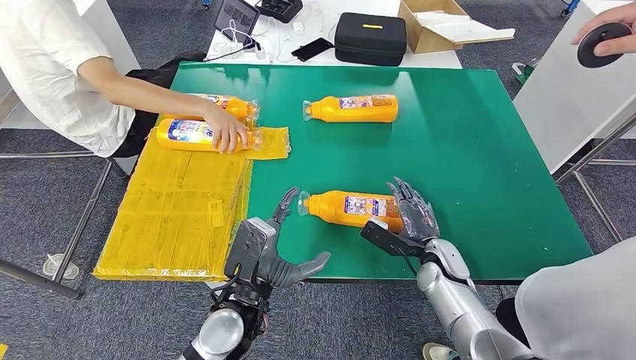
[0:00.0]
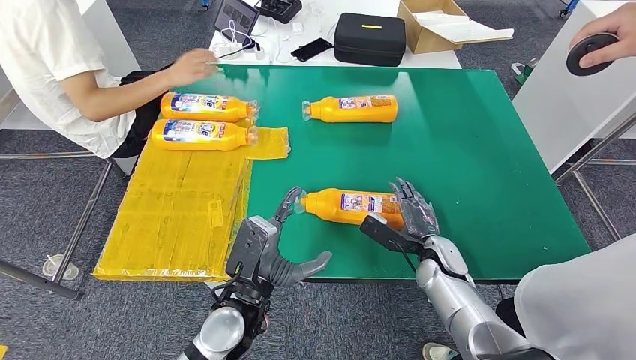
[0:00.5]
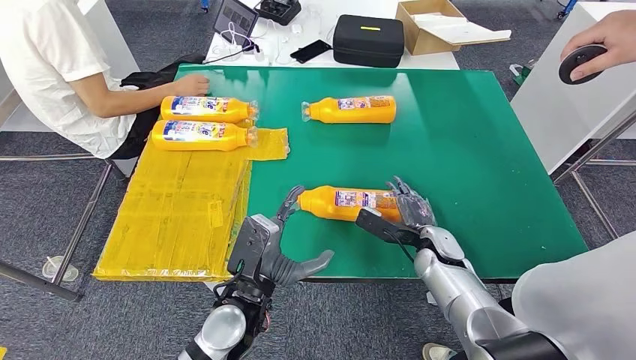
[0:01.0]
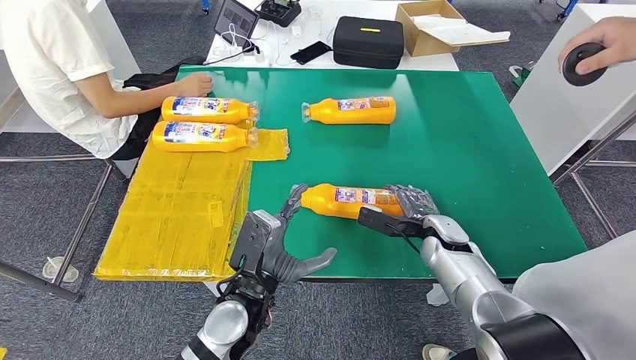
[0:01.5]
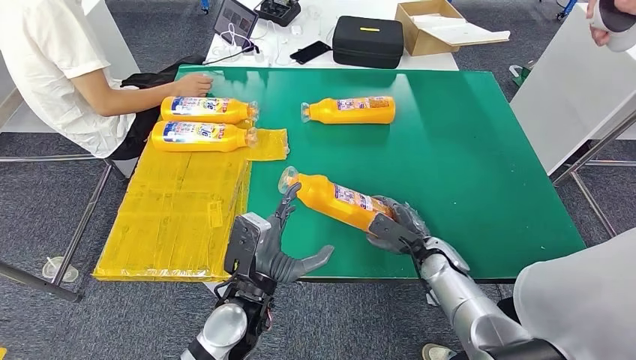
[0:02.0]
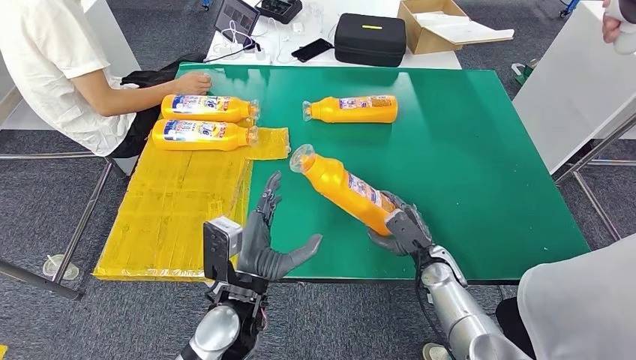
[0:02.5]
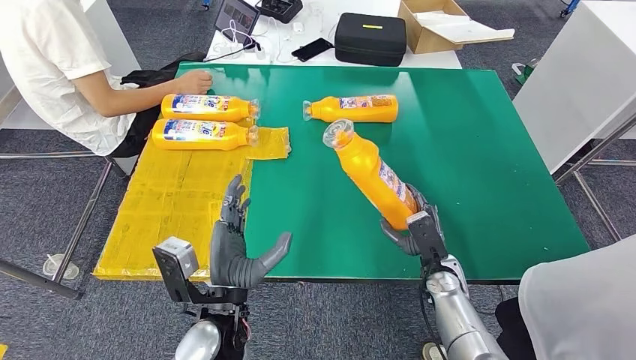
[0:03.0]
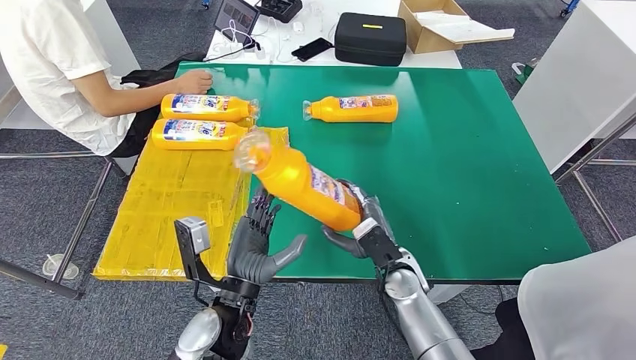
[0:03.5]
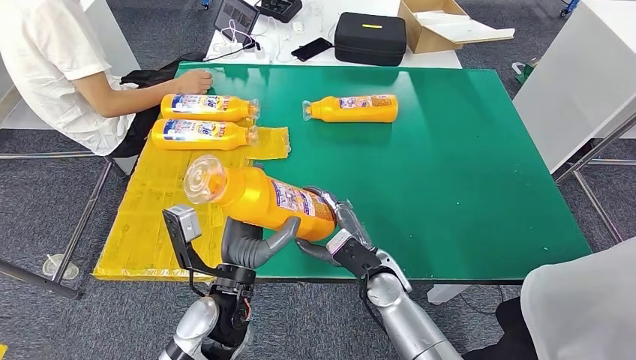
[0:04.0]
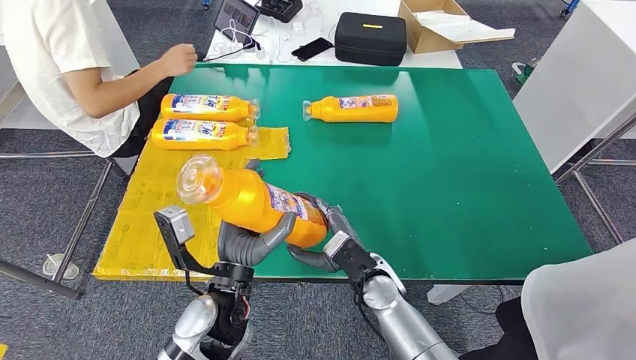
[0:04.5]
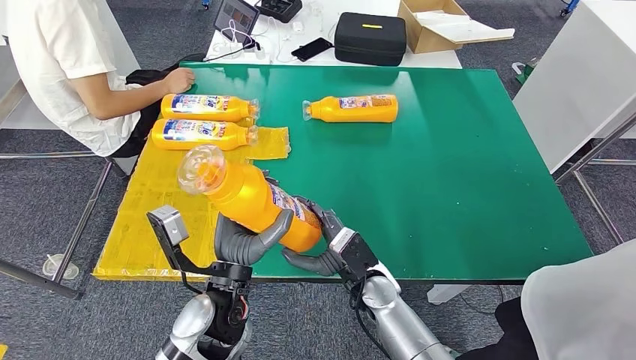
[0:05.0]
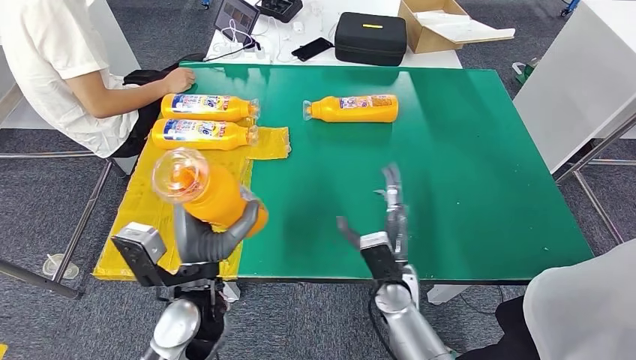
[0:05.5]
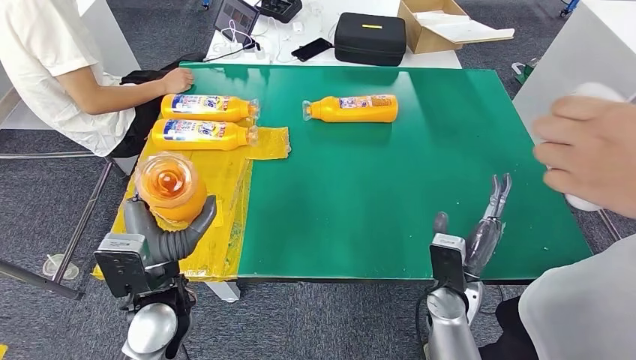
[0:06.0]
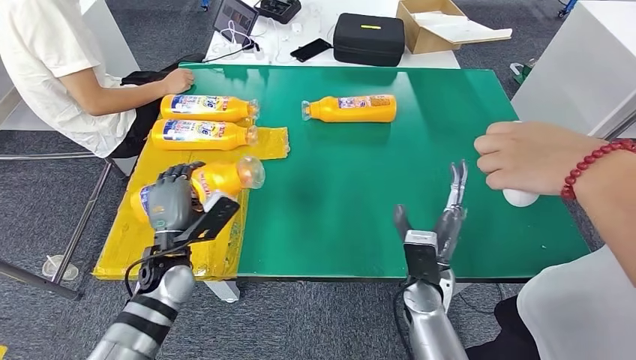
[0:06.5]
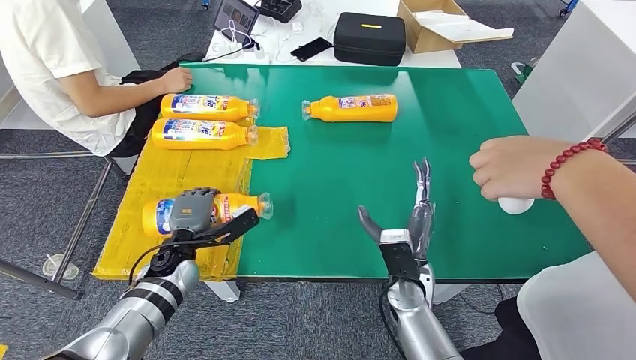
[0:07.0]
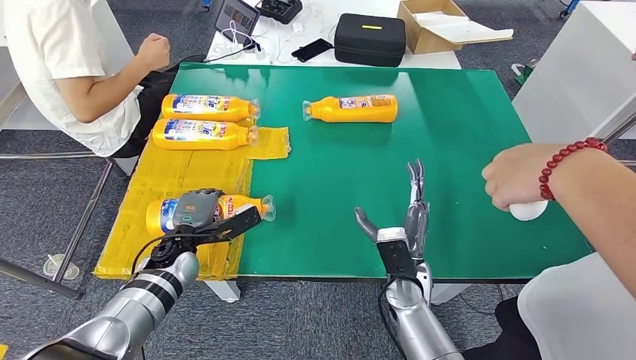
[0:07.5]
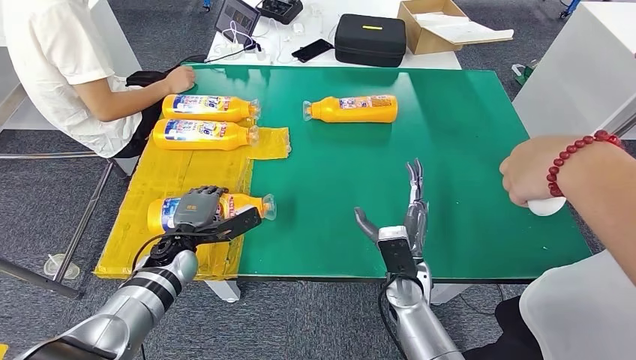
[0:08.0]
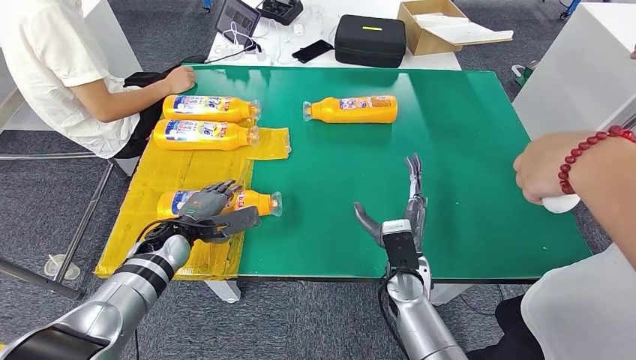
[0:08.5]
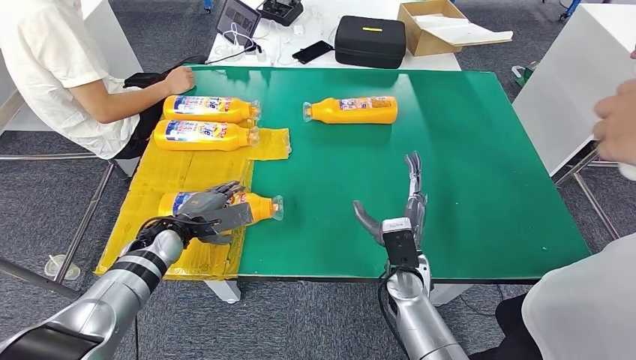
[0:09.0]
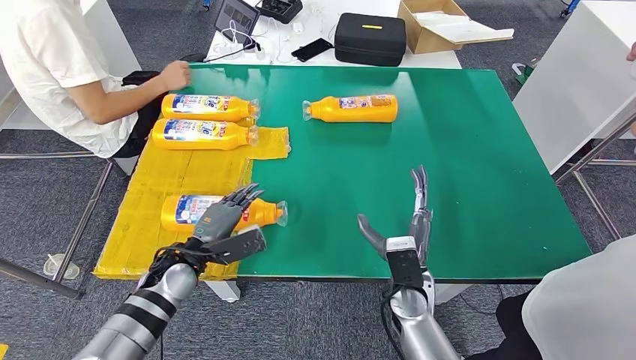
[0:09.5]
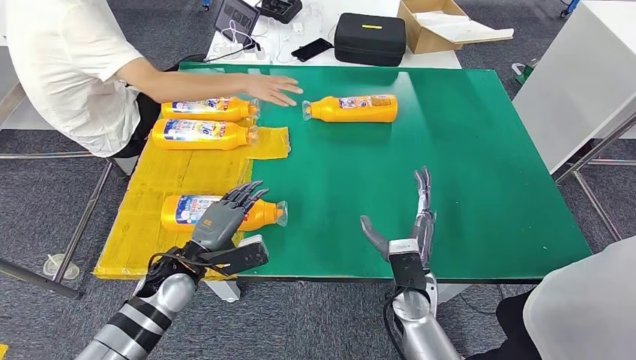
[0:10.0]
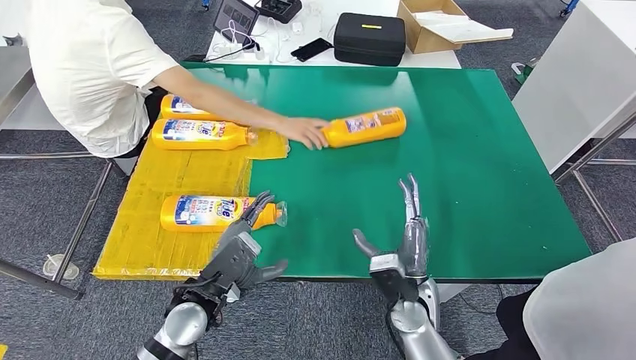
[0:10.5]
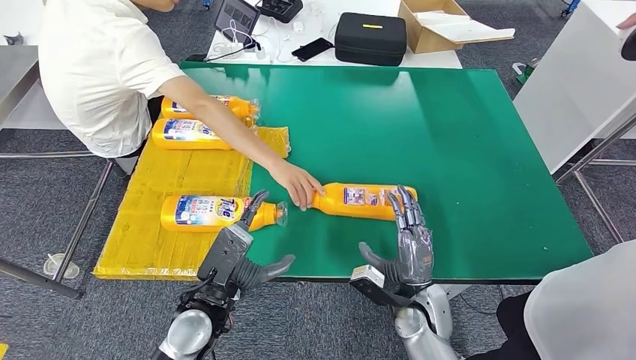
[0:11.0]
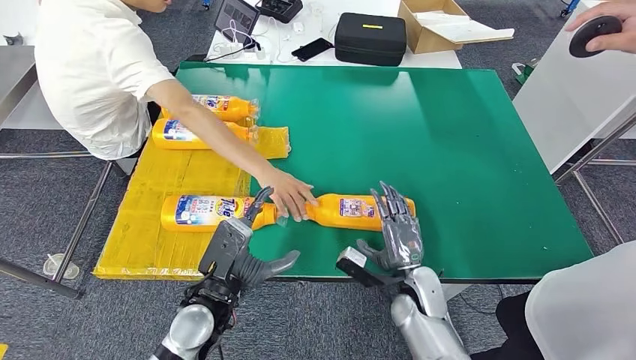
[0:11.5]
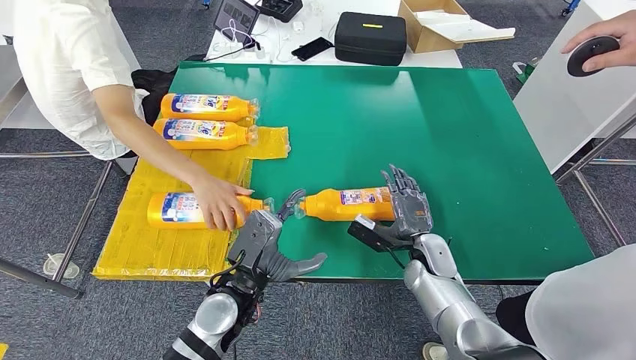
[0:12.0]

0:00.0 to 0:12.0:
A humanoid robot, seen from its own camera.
Step, 0:00.5 to 0:03.5: Pick up the fast-moving consumer goods bottle from the table.
Step, 0:05.0 to 0:07.0: Flip the fast-moving consumer goods bottle to the front side.
0:08.0 to 0:10.0: The left hand ends up approximately 5 cm from where it was.

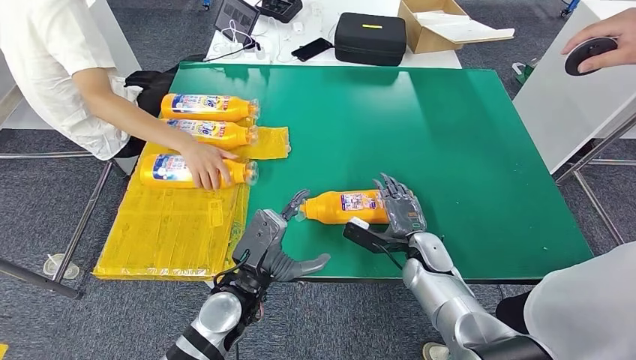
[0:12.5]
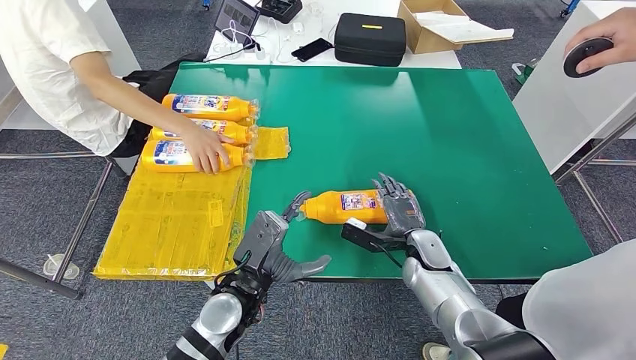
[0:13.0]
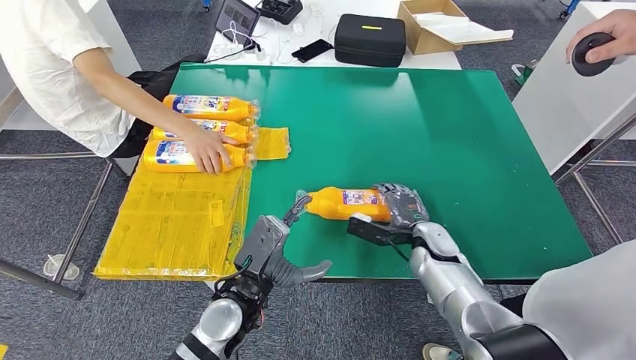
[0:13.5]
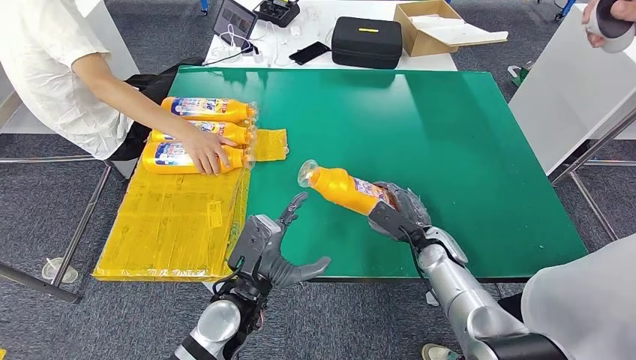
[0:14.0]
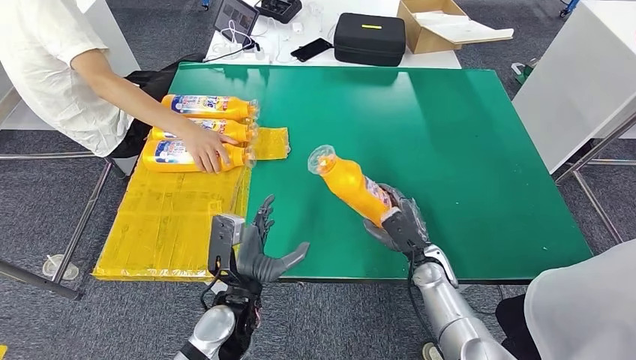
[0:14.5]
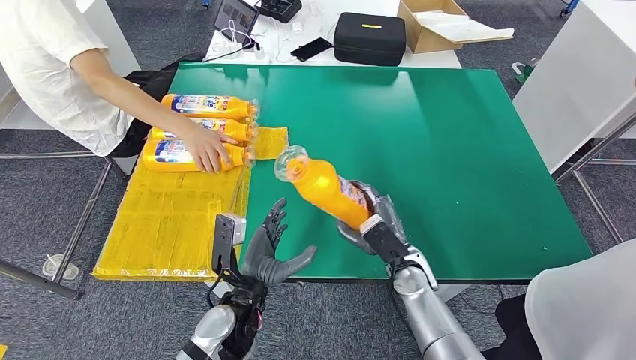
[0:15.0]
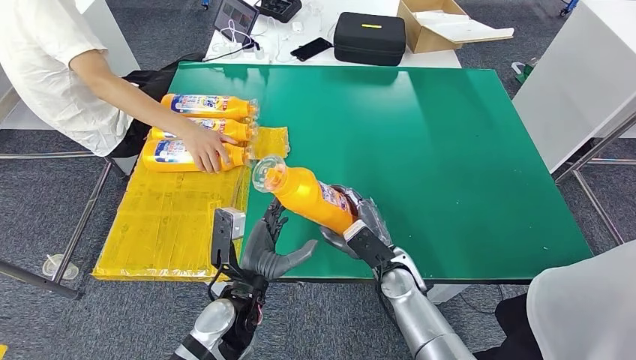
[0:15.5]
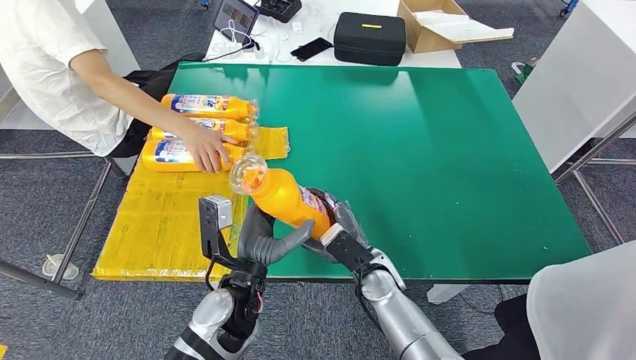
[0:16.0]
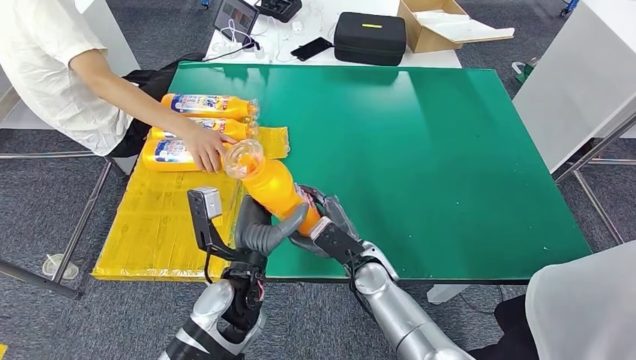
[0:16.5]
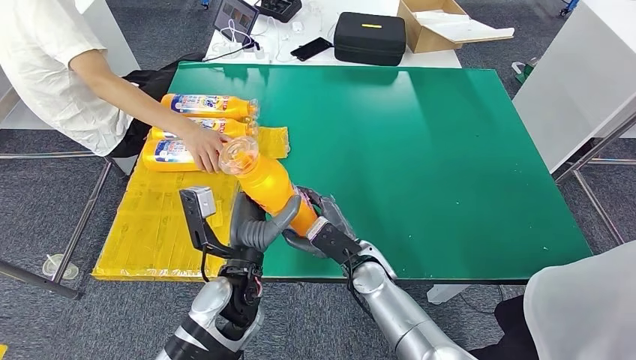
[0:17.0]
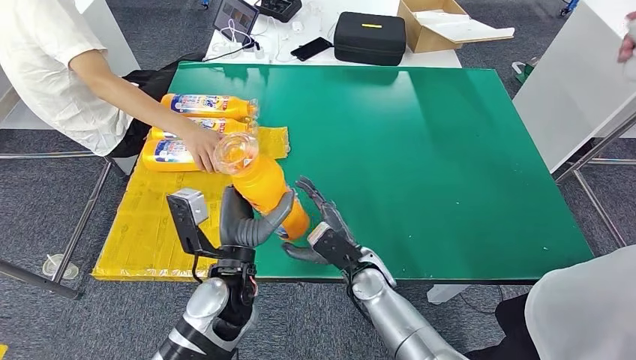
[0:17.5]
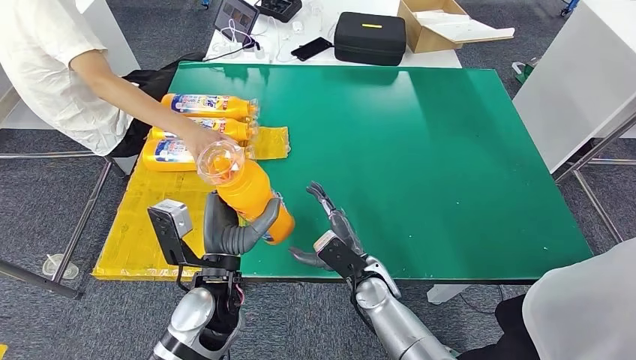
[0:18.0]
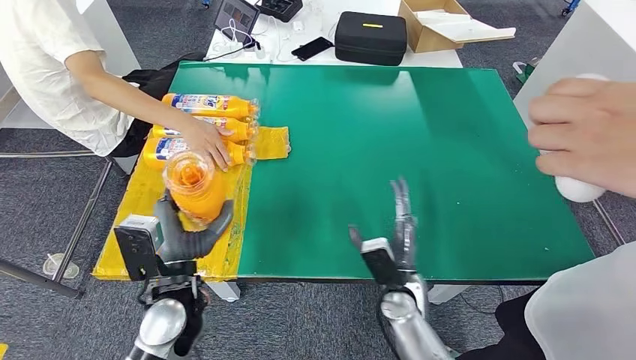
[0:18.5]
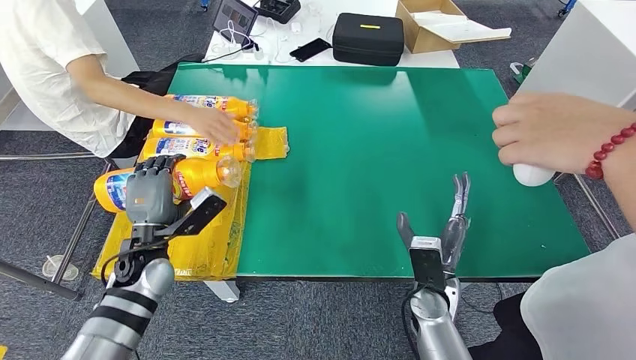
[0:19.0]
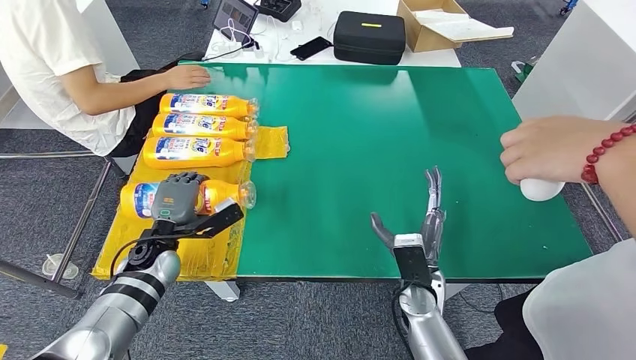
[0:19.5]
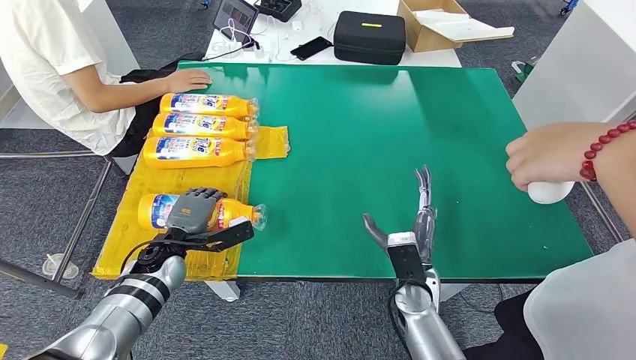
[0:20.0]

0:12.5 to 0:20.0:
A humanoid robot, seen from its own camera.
Step, 0:12.5 to 0:15.0: Pick up the fast-moving consumer goods bottle from the table.
Step, 0:15.5 to 0:20.0: Flip the fast-moving consumer goods bottle to the front side.
0:14.5 to 0:16.5: The right hand is displaced to the left by roughly 15 cm. Meanwhile the left hand ends up approximately 5 cm from where it was.
0:16.5 to 0:18.0: The hands move only a little.
